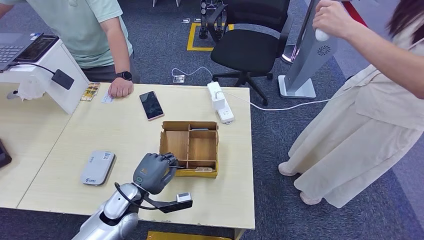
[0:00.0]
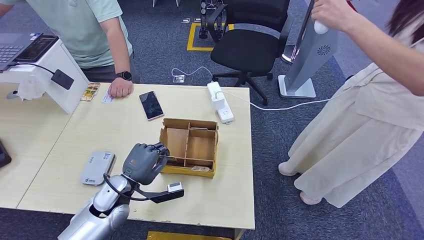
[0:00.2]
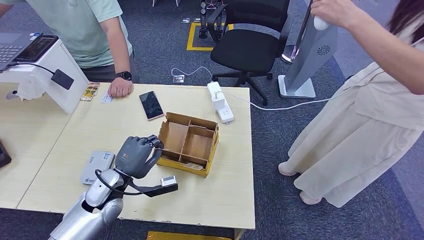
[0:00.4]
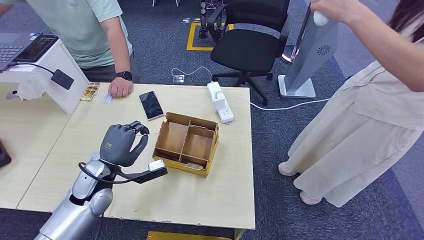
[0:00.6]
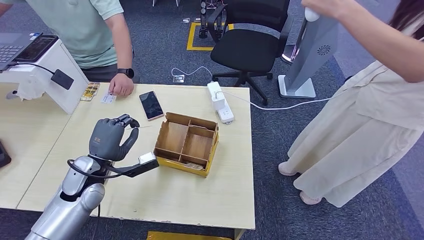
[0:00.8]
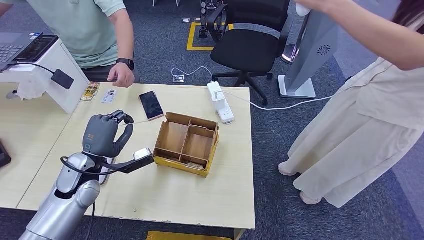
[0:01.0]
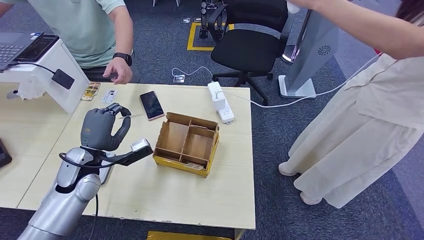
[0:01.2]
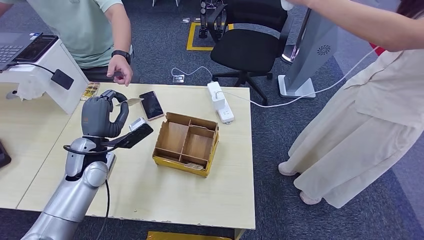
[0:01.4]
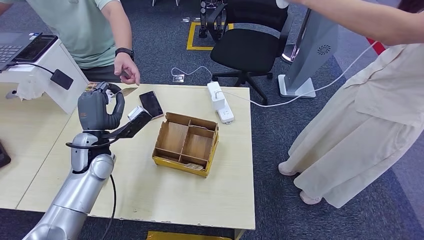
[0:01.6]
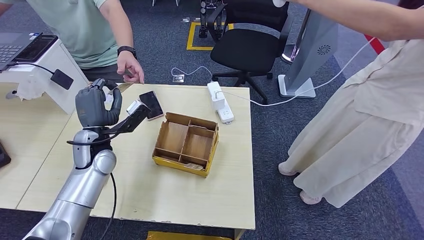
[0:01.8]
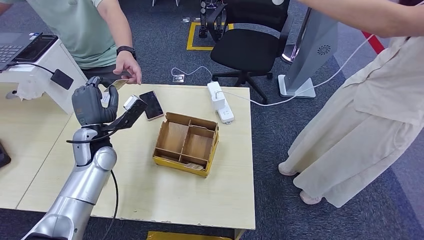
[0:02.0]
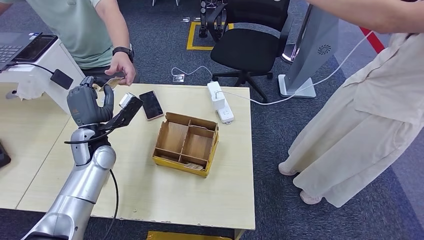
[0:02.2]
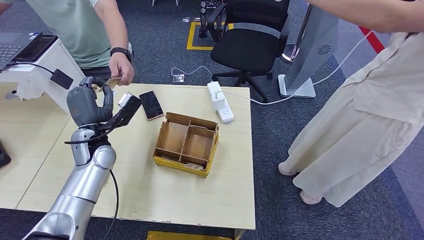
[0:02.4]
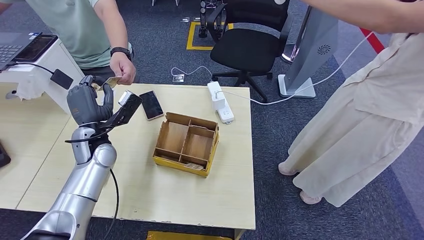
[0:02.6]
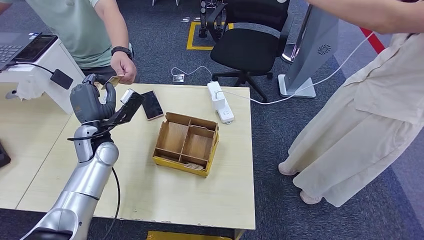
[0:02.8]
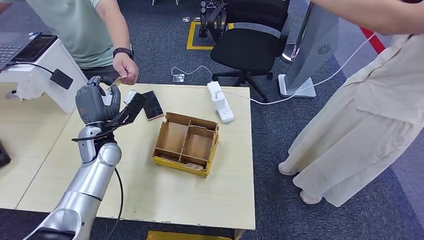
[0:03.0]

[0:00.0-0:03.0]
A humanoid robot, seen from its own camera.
Step, 0:00.4 to 0:02.8: Hand the room key to the person.
0:01.6 to 0:03.0: The hands stay close to where they were, moving slightly.
